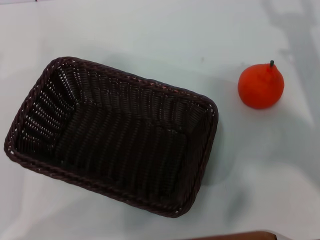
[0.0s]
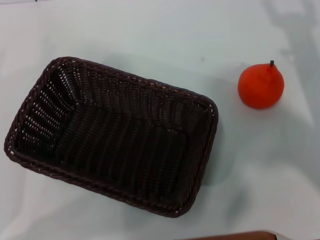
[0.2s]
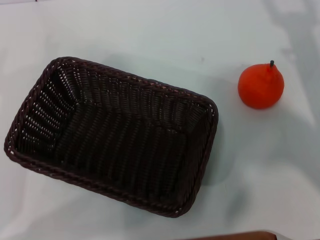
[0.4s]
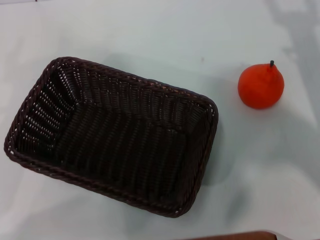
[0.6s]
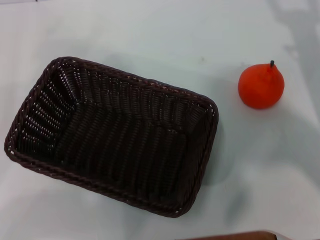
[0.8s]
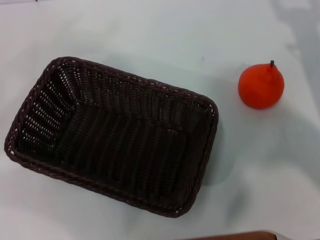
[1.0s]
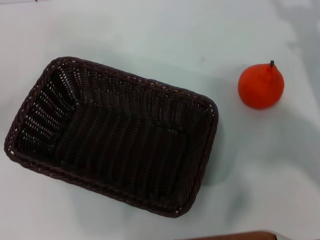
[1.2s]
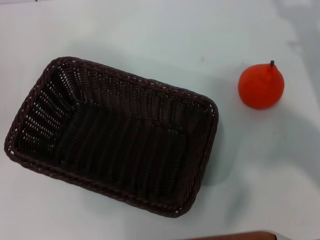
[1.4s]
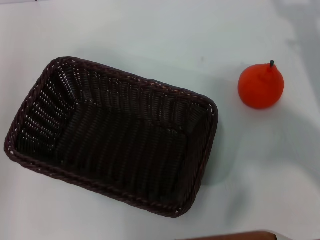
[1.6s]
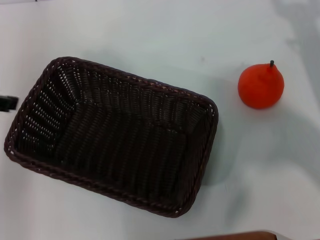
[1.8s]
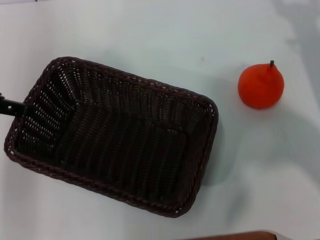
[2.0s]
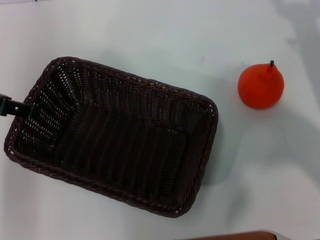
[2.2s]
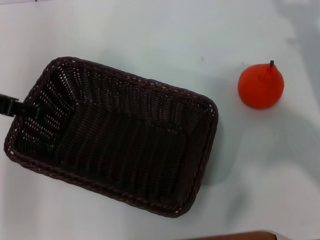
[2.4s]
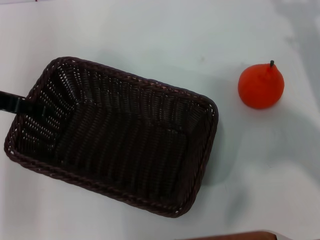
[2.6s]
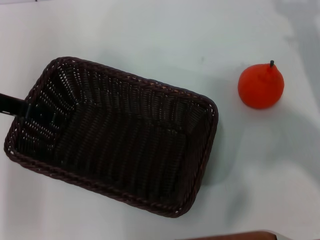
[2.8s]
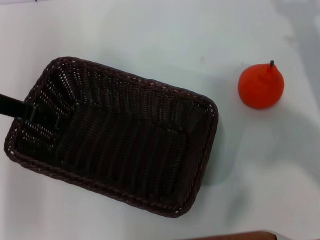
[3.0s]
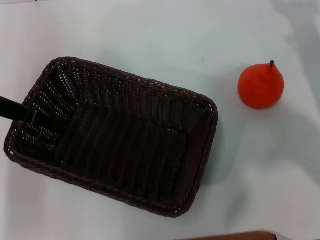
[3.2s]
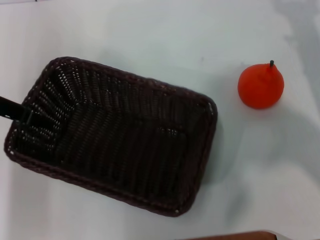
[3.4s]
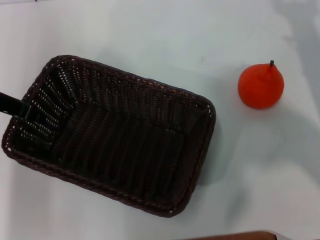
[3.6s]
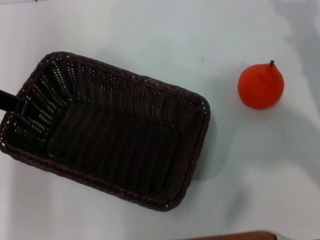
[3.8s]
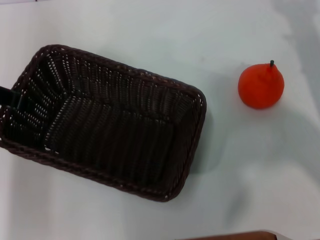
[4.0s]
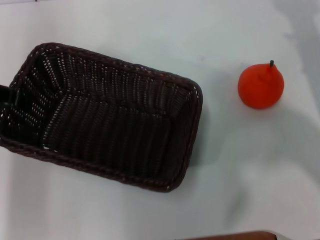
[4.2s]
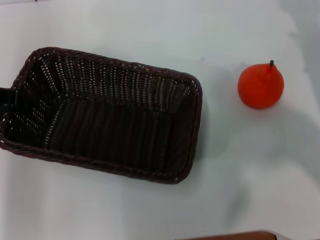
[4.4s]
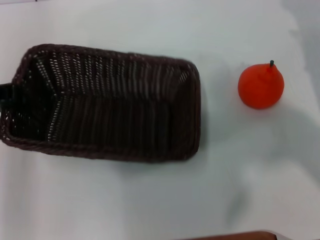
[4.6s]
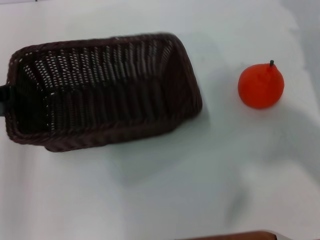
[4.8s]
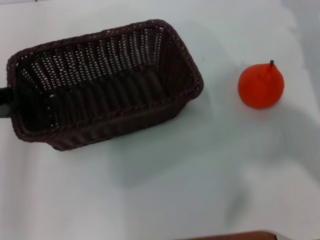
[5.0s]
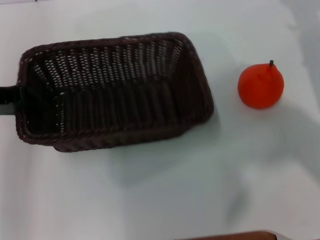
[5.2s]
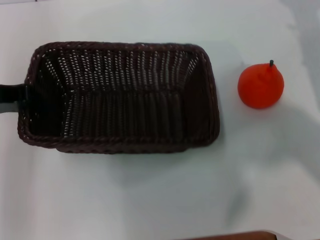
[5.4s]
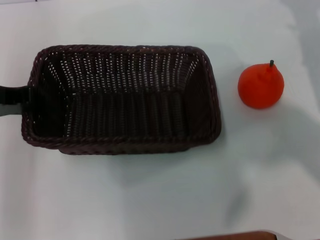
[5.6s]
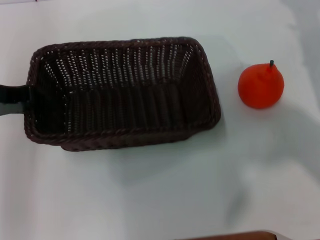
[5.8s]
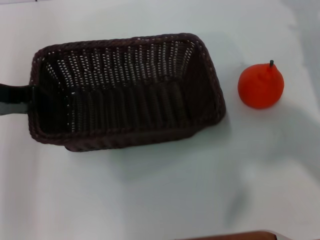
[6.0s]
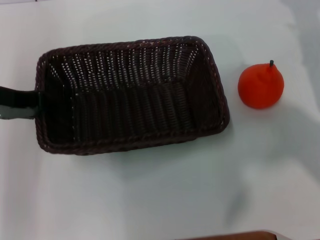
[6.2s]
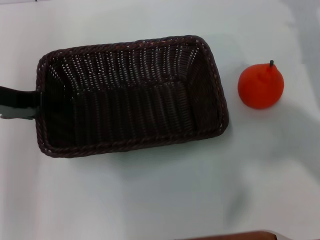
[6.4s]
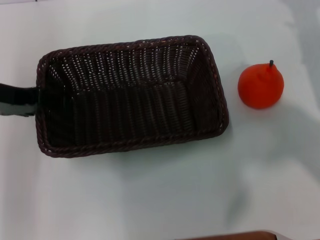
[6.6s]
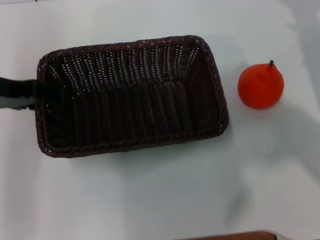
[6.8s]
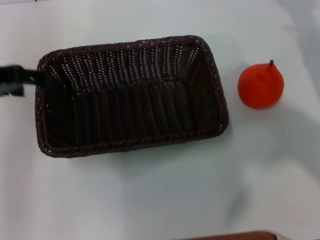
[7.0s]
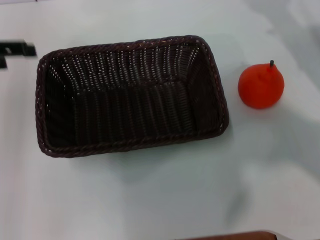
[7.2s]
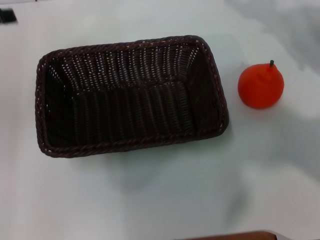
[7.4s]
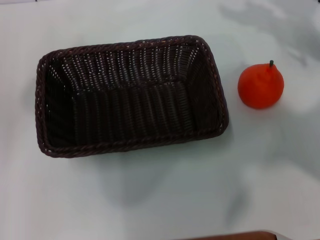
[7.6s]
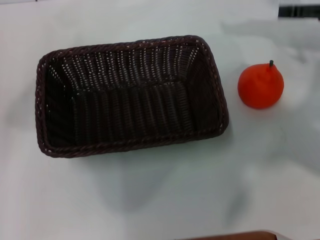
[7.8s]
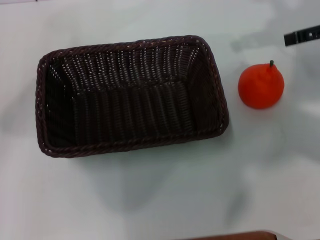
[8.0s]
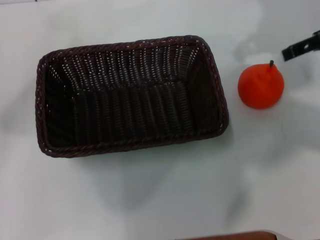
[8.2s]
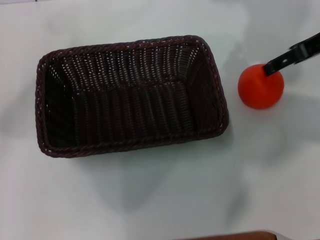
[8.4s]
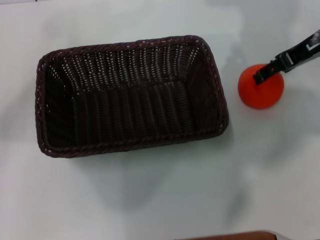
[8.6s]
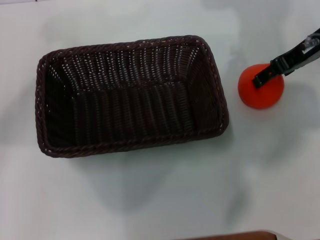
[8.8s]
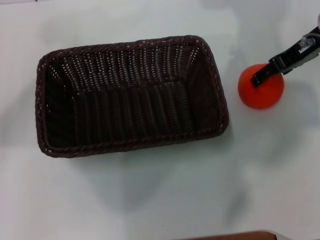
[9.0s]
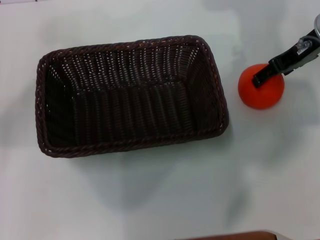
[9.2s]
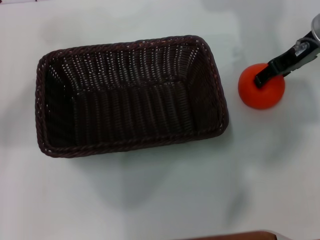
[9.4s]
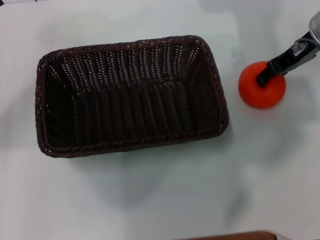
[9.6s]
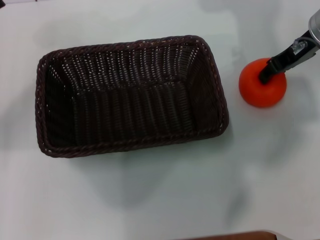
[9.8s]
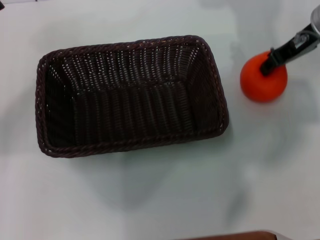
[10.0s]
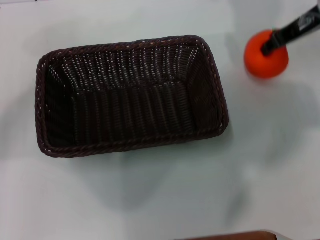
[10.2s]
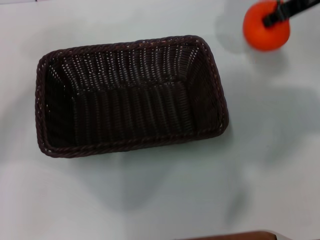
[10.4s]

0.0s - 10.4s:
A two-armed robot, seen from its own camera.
Task of the whole recording: the left gripper pick up the black basket and place it horizontally in the middle of the table, the right gripper pick up the orange and place it into the black basket.
Step, 0.0s - 4.2s: Pick up the dark basket with the left gripper.
Step, 4.6s - 7.0s: Place the dark basket in the center of view with the left gripper.
Step, 7.2s - 10.4s: Pick up the orange with the right gripper.
0.0s - 1.4s: The left gripper goes approximately 20 cm upward, and opens up.
1.4s - 3.0s: The left gripper heads to the right, downward and forward, covering approximately 15 cm.
3.0s - 4.4s: The left gripper closes up.
4.4s - 6.0s: The grippers stay close to where they were, moving slightly.
6.0s - 7.4s: The left gripper shifts approximately 5 cm to the left, and opens its fingers.
7.4s - 9.0s: The right gripper heads to the left and forward, covering approximately 10 cm.
9.0s - 10.4s: The right gripper heads upward, covering about 5 cm, and closes up.

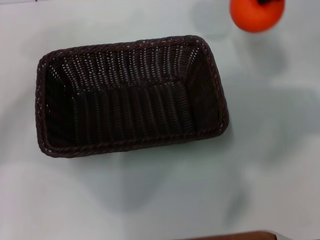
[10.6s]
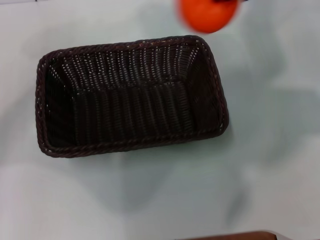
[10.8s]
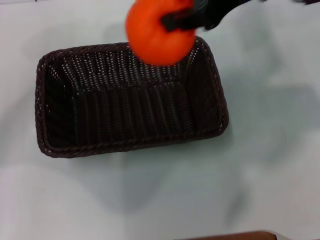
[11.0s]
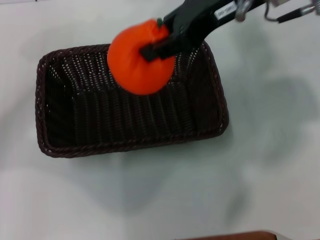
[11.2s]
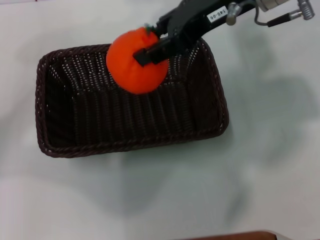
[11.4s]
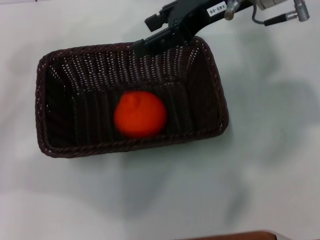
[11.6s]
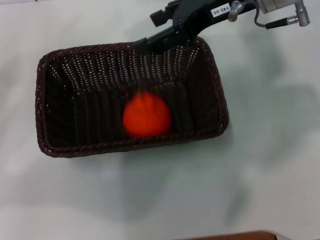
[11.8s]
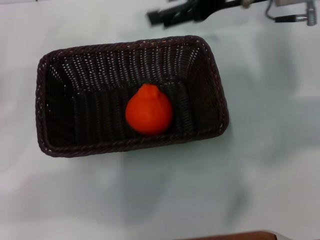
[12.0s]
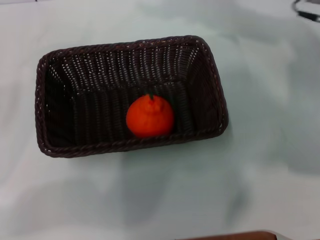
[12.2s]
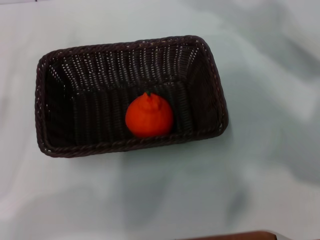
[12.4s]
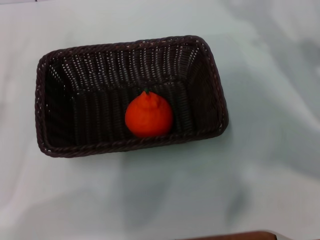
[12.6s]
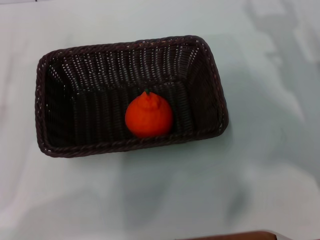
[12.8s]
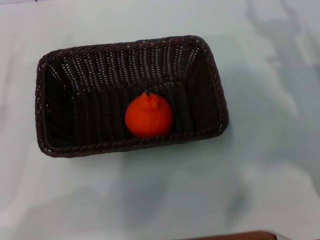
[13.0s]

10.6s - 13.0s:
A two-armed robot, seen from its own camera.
Task of the whole recording: the left gripper pick up the black basket and place it horizontally in the middle of the table, the right gripper pick up the orange and place it into the black basket.
Step, 10.6s - 11.8s: Place the orange into the dark basket with the right gripper.
10.6s - 11.8s: The right gripper is displaced to the left by roughly 10 cm, and opens.
11.8s - 13.0s: The left gripper goes about 5 cm downward. The right gripper travels downward, to the right and backward by about 25 cm.
